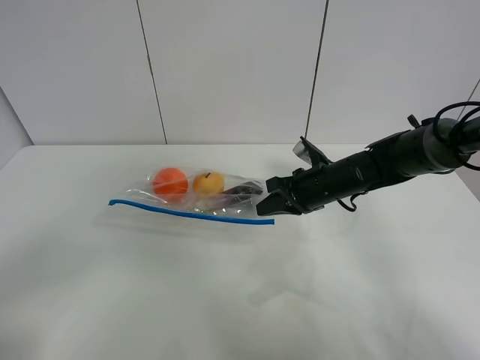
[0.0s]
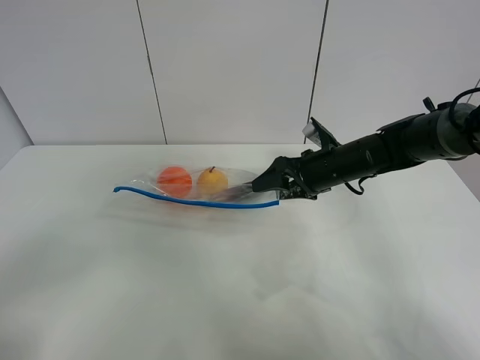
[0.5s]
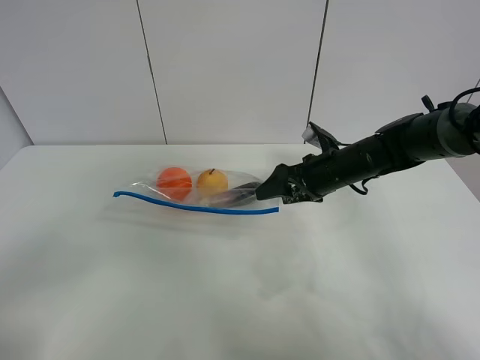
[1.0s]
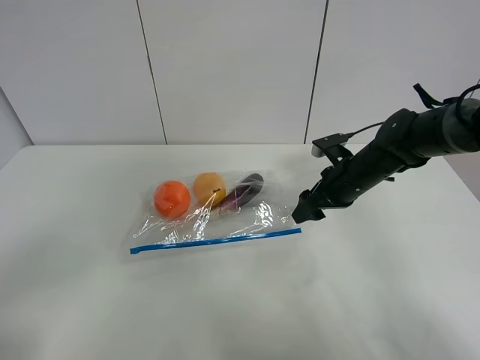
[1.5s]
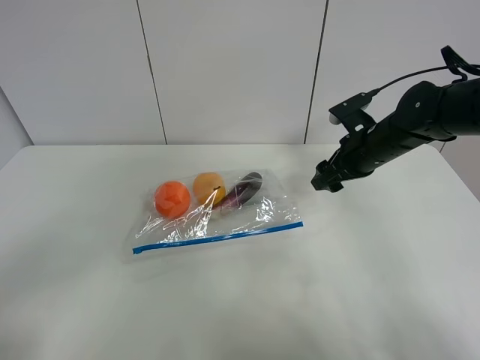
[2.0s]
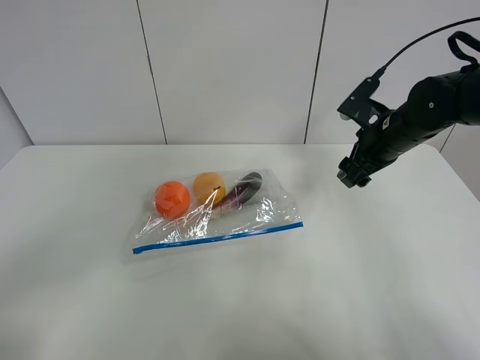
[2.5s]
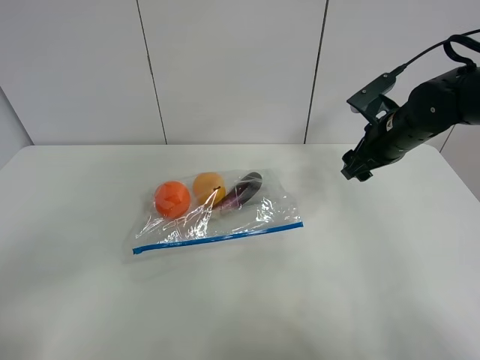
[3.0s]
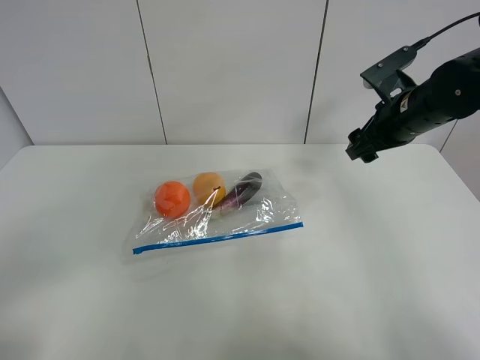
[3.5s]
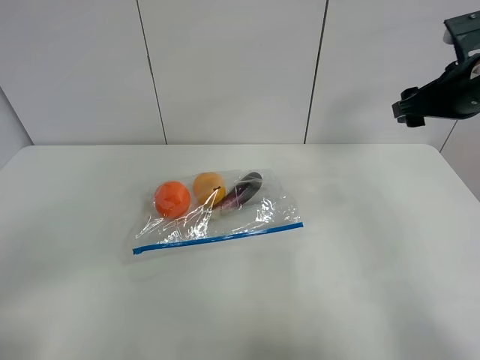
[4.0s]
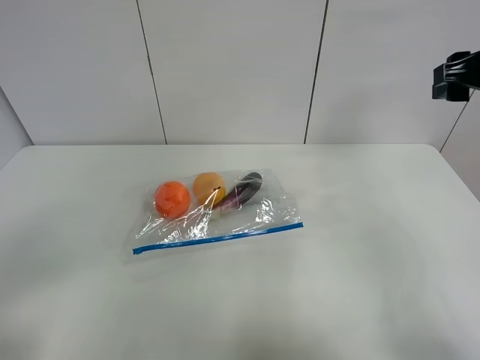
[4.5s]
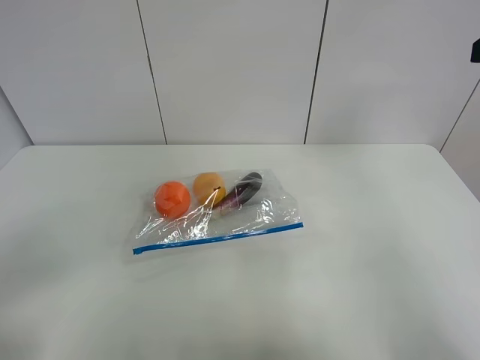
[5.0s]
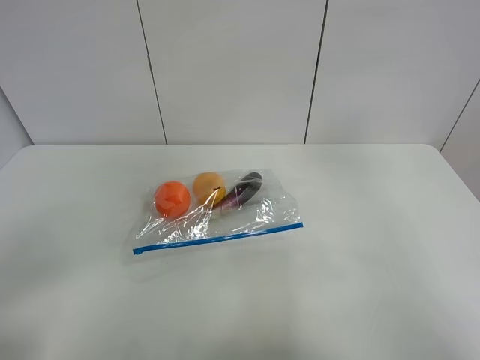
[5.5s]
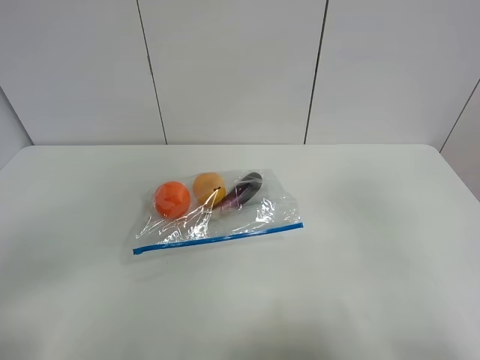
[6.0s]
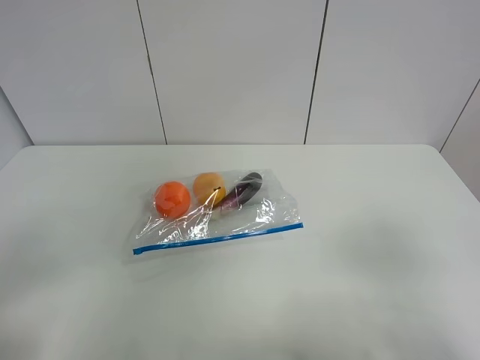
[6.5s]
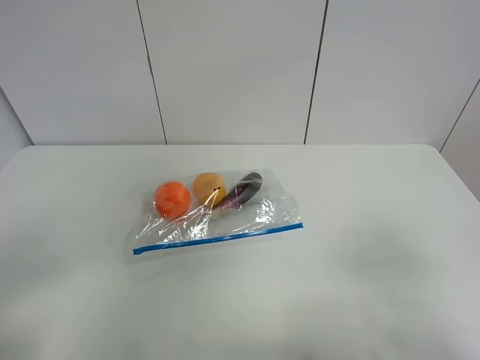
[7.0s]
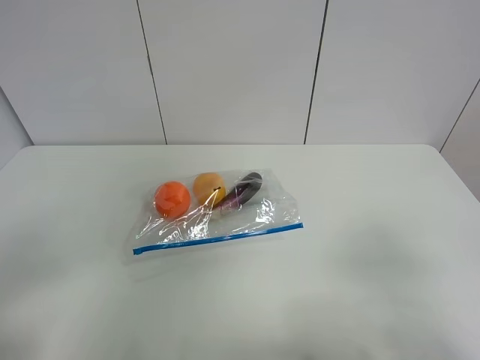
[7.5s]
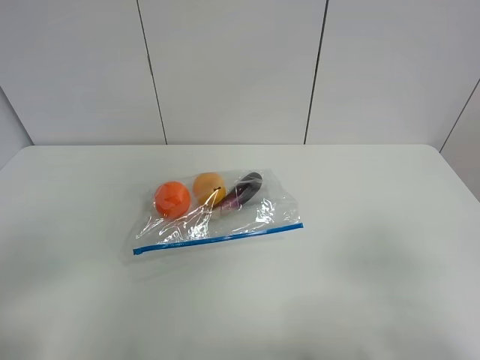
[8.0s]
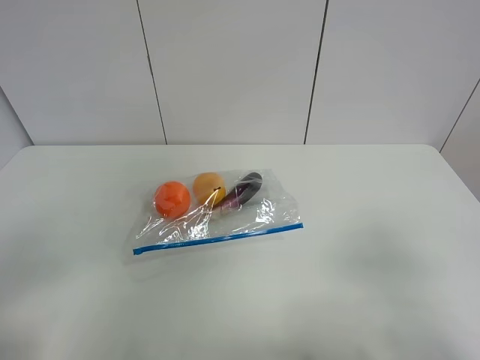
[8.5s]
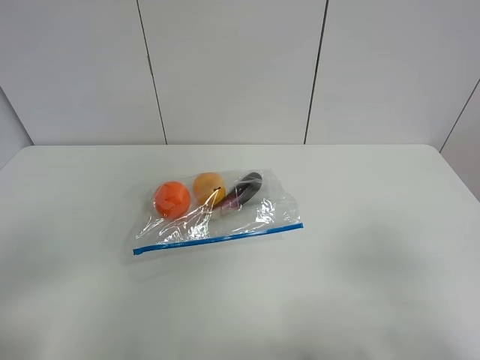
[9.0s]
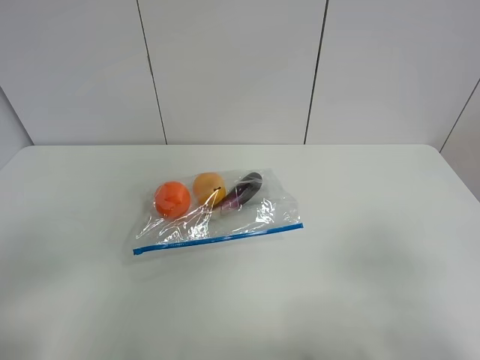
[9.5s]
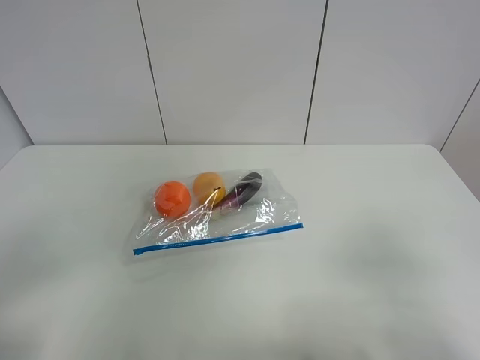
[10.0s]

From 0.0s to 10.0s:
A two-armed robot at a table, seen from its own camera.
From 0.0s to 2.0s: The right gripper shifts roughly 10 cm to the right and upward, and opens.
From 2.0s to 4.0s: The right gripper travels upward and to the right by approximately 15 cm.
From 4.0s to 6.0s: The right gripper moves backward, some 30 cm.
From 8.0s to 10.0s: Neither gripper changes place.

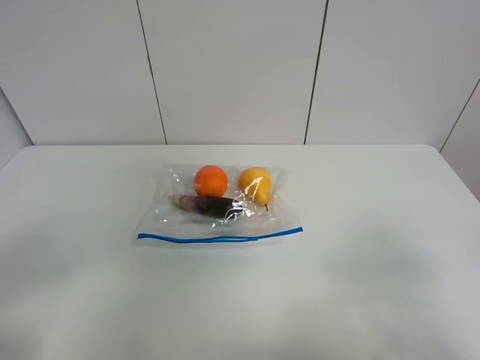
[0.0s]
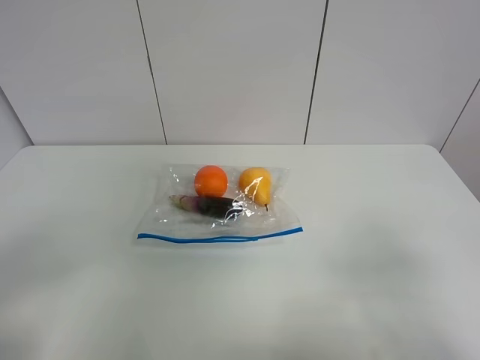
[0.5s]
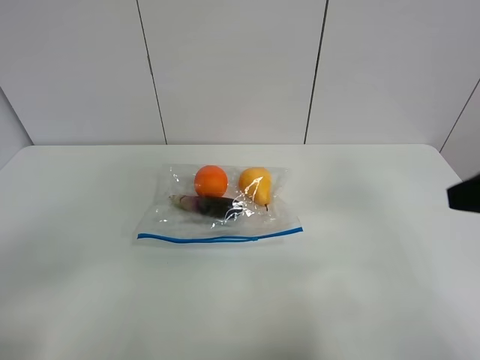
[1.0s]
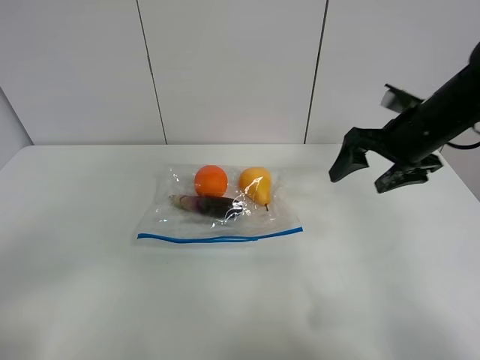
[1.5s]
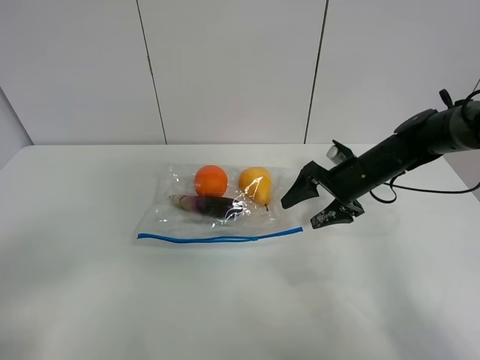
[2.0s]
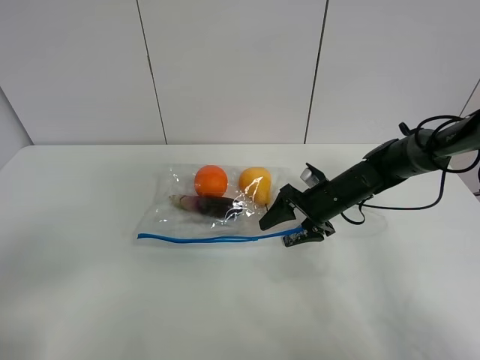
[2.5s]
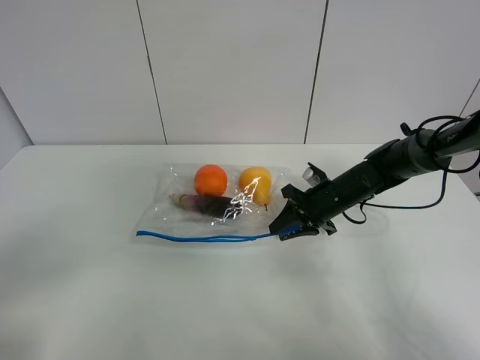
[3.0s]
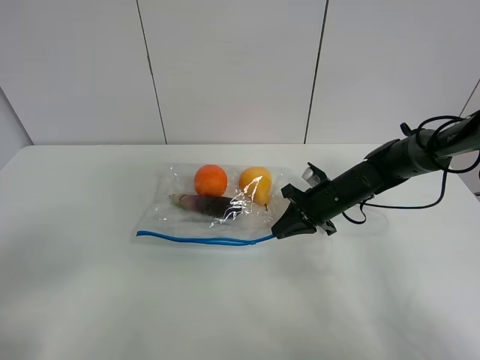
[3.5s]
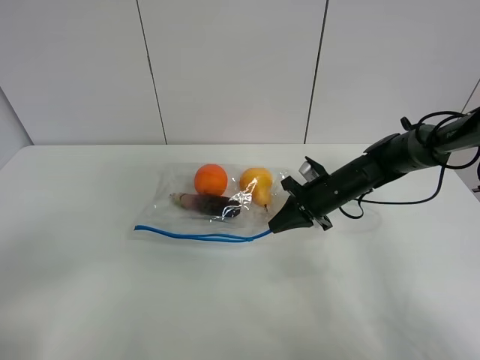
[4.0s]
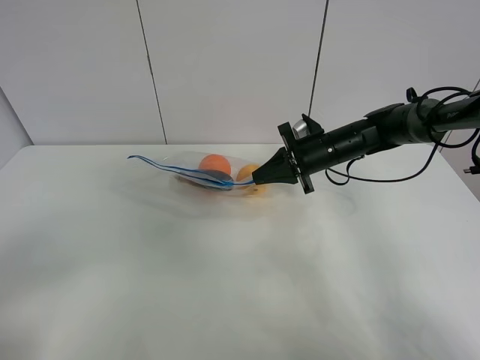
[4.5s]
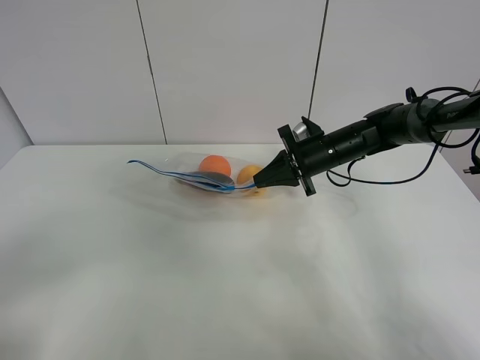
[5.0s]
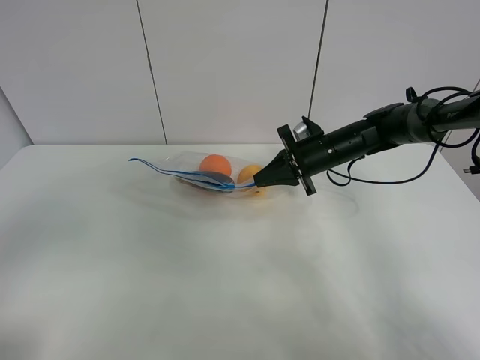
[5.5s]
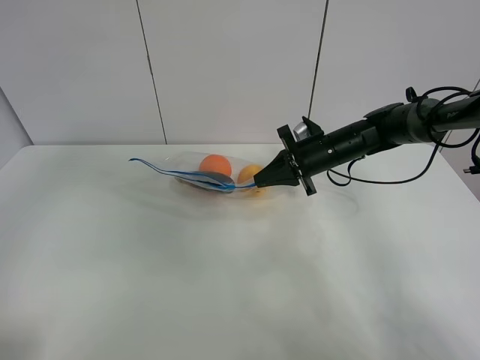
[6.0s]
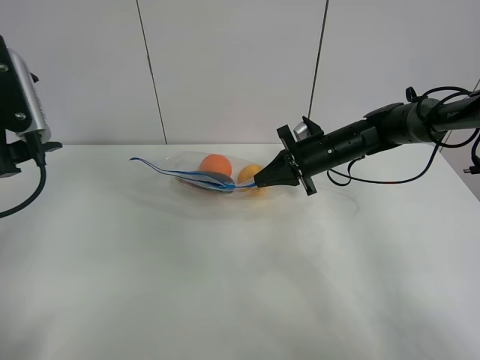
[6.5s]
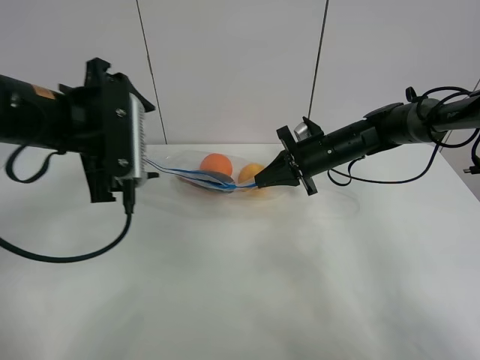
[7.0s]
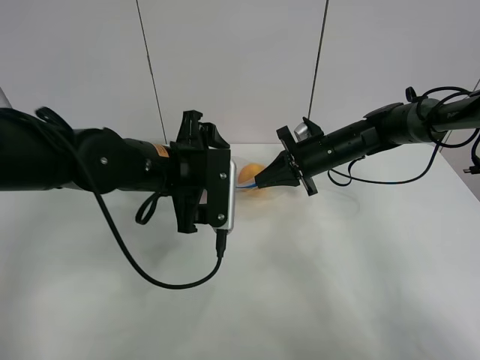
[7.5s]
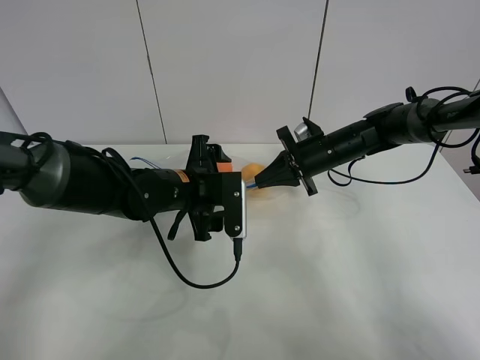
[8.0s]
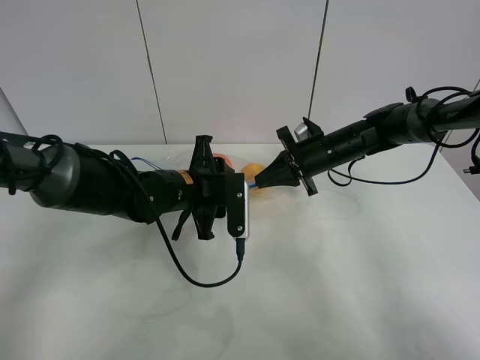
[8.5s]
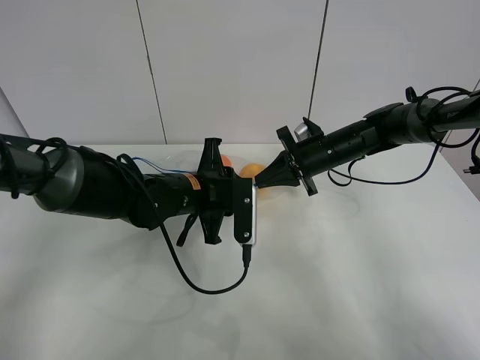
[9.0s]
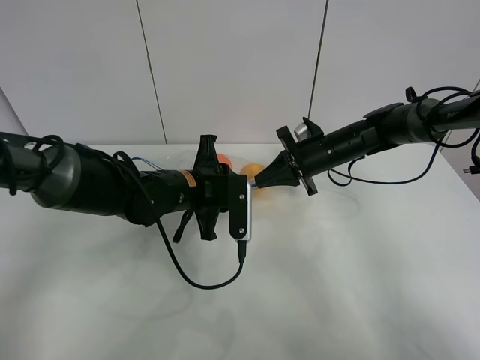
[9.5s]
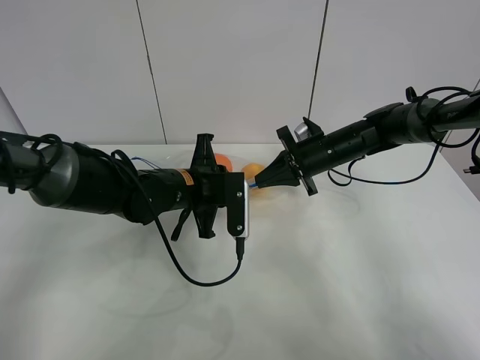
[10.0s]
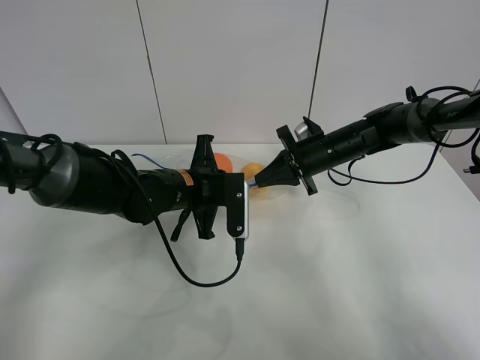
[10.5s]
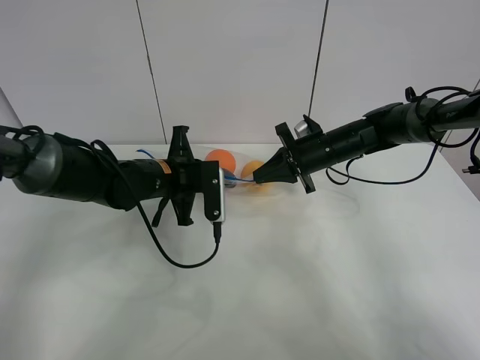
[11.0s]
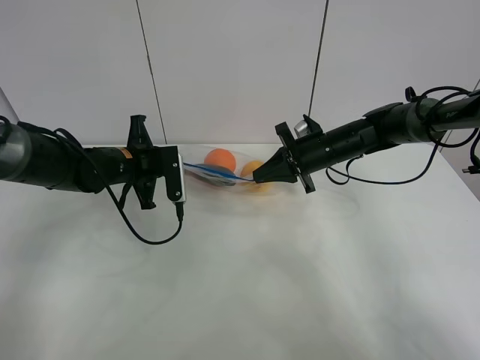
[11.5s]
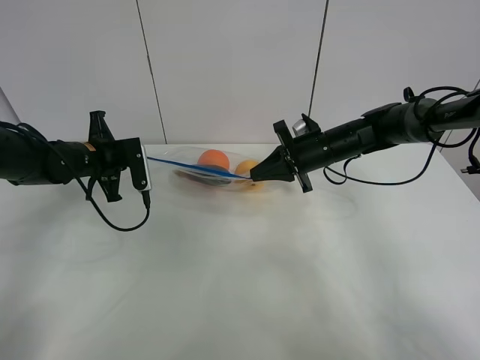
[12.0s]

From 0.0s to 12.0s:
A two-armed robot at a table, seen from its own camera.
Step, from 0.0s to 3.5s: Grasp the fruit bag with right gripper.
Step, from 4.0s to 4.5s: Lift the fruit bag with your right gripper.
From 0.0s to 2.0s: The right gripper goes roughly 40 cm forward.
From 2.0s to 4.0s: The right gripper moves roughly 5 cm, and closes its fingers.
From 4.0s to 6.0s: The left gripper shifts roughly 20 cm forward and upward. Meanwhile the right gripper heads upward, covering some 5 cm.
From 6.0s to 8.0s: The left gripper goes some 35 cm downward, to the right and forward.
From 8.0s to 10.0s: The left gripper closes its fingers.
From 10.0s to 12.0s: The left gripper travels to the left by about 20 cm.

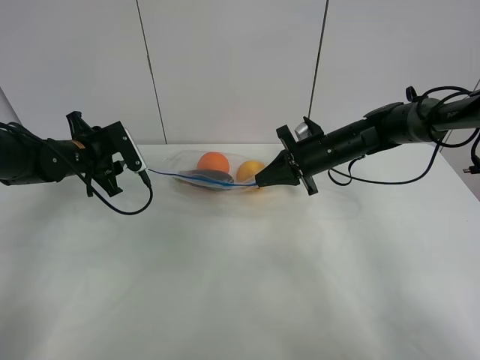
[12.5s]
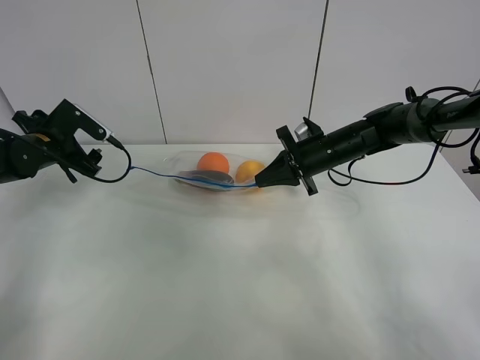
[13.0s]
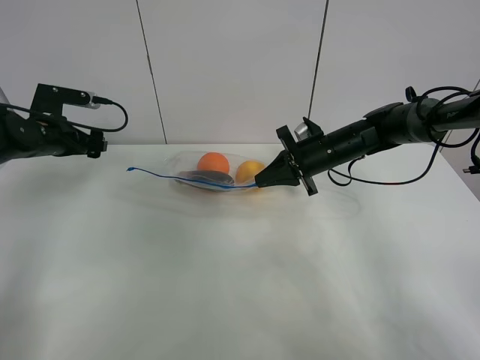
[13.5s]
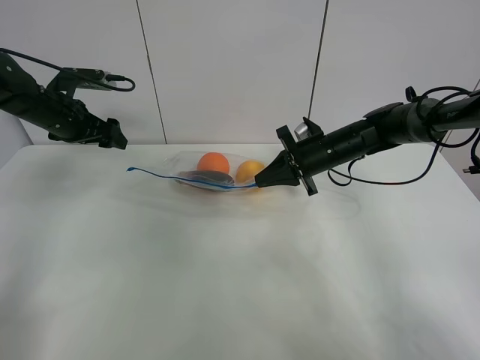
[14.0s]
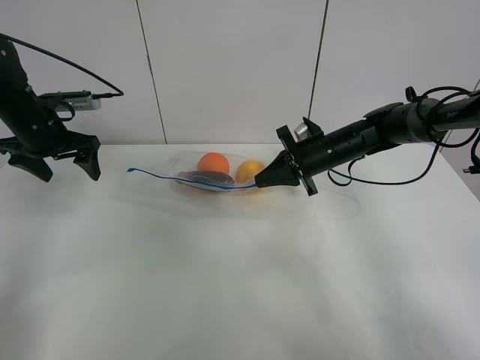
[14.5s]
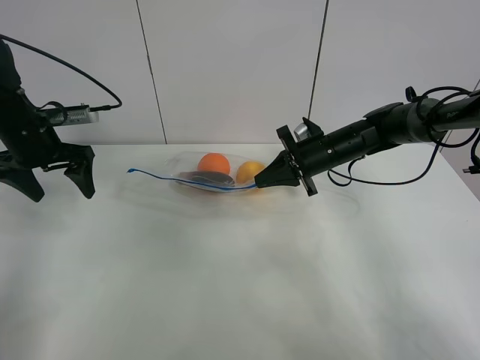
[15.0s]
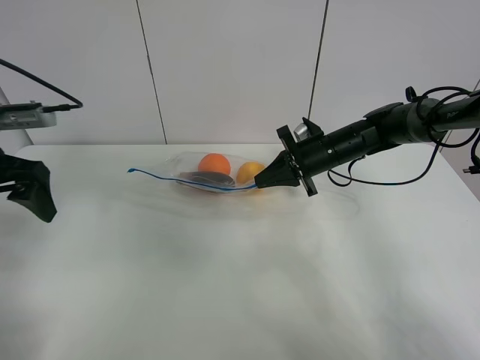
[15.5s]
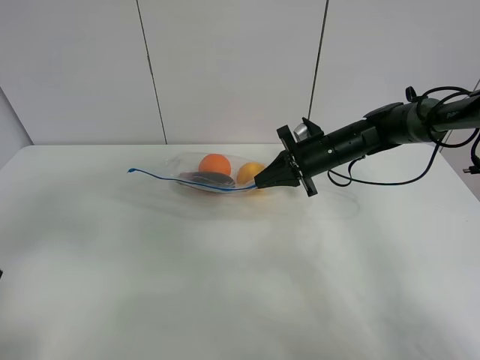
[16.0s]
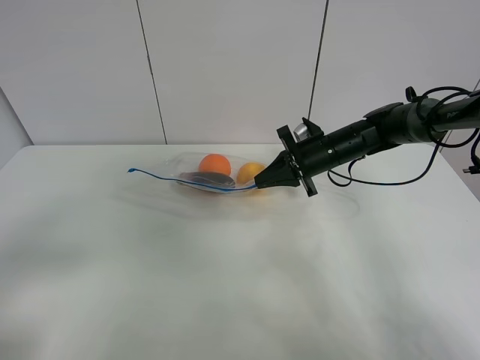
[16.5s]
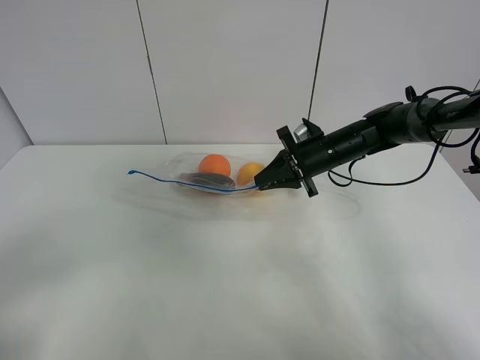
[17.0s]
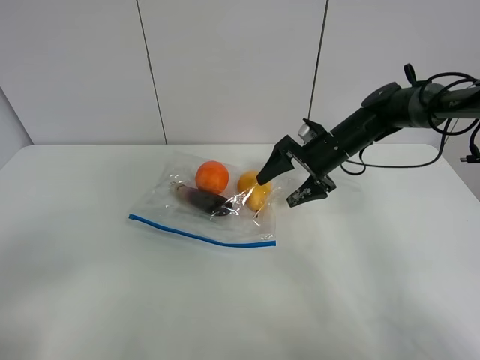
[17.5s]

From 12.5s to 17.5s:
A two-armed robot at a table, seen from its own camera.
From 12.5s to 15.0s: The left gripper goes some 5 cm upward.
From 15.0s to 17.5s: The right gripper opens. Meanwhile the left gripper heads backward, covering about 35 cm.
